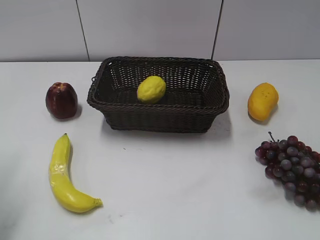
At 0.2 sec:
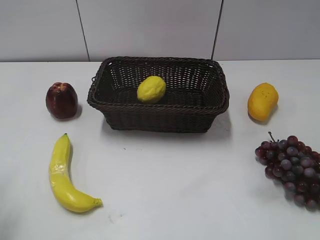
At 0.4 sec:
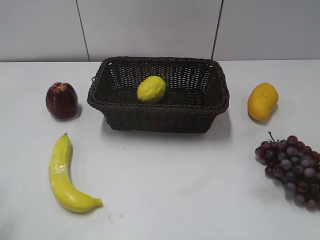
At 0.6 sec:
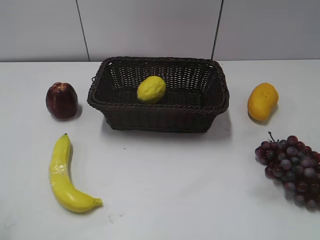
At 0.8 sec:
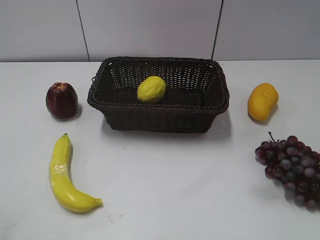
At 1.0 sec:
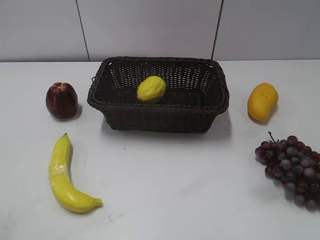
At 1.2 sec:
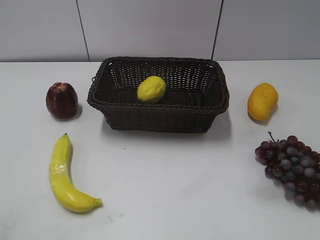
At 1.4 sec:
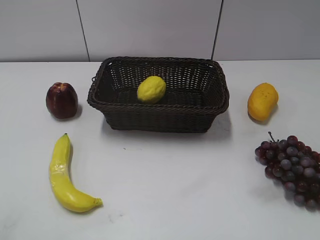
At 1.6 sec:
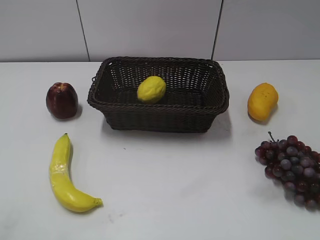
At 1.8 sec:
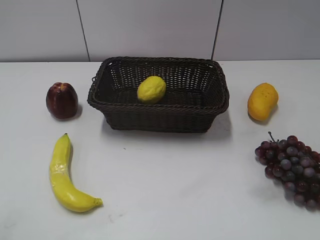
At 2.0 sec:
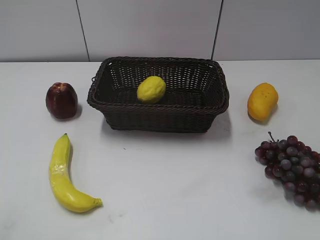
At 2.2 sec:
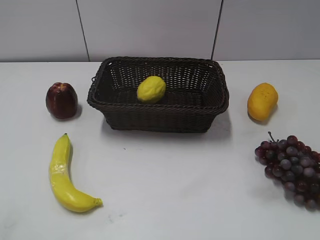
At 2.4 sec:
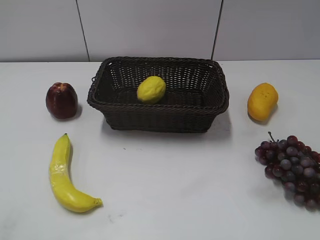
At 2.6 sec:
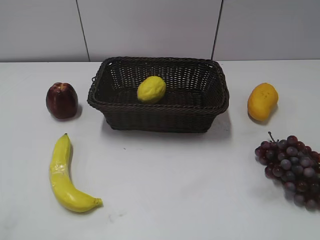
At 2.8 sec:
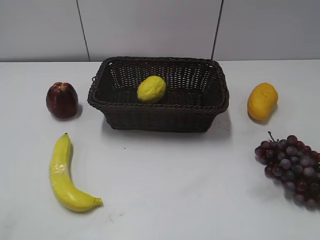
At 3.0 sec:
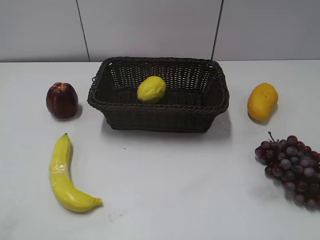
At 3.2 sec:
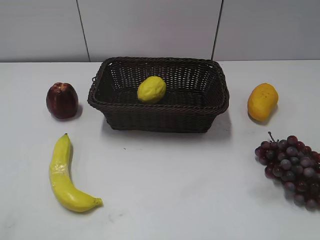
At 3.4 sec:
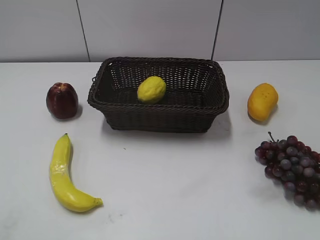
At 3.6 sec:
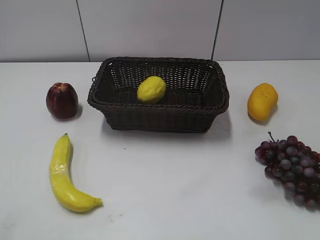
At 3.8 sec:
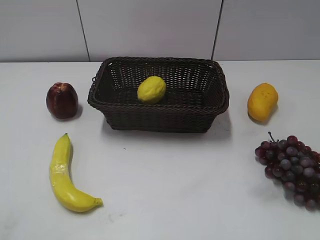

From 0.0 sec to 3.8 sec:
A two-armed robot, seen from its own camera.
From 2.6 sec to 3.8 sec: The two grippers keep their place.

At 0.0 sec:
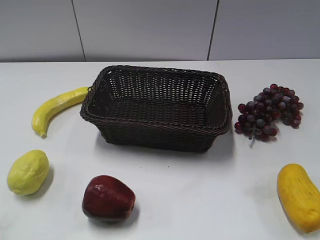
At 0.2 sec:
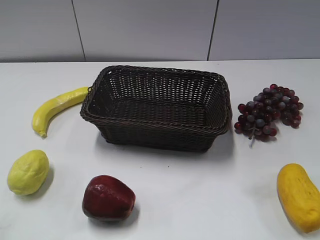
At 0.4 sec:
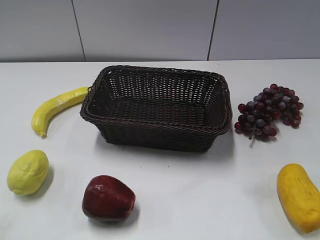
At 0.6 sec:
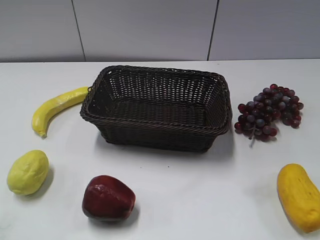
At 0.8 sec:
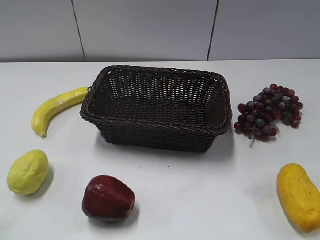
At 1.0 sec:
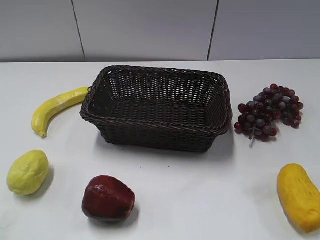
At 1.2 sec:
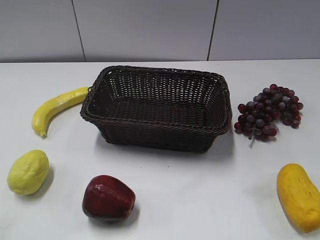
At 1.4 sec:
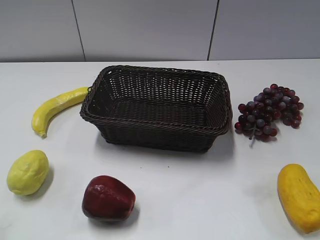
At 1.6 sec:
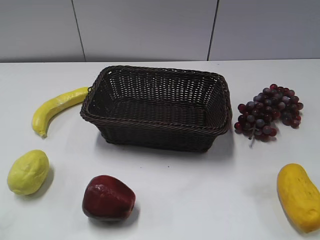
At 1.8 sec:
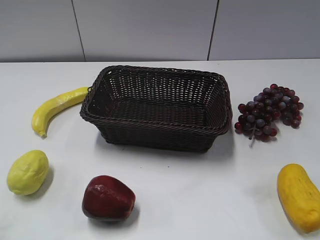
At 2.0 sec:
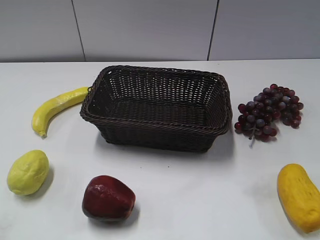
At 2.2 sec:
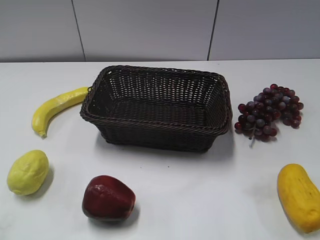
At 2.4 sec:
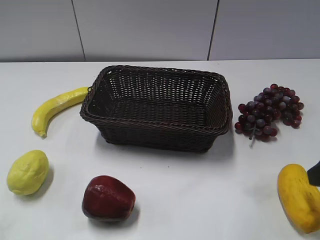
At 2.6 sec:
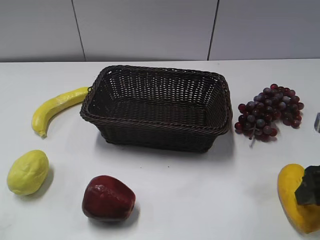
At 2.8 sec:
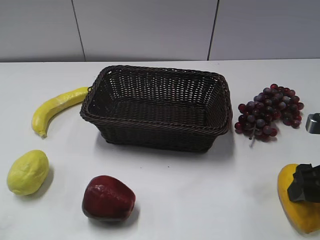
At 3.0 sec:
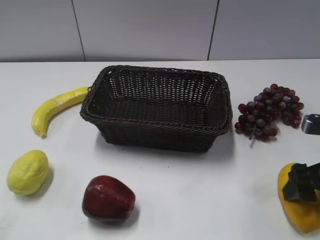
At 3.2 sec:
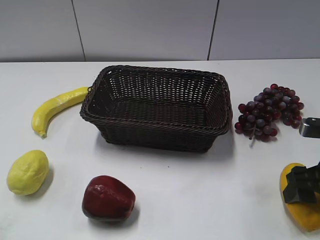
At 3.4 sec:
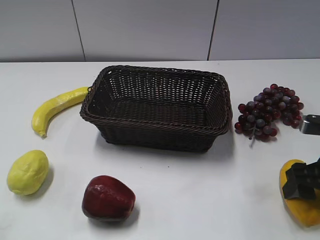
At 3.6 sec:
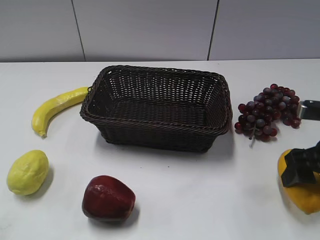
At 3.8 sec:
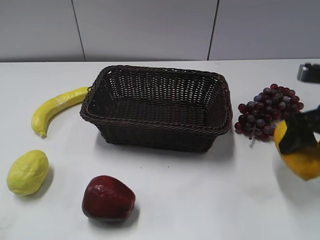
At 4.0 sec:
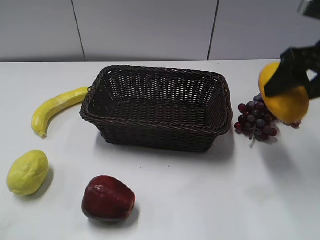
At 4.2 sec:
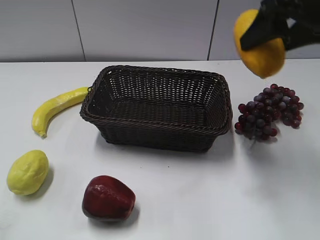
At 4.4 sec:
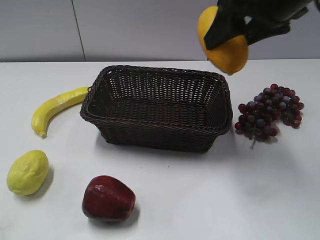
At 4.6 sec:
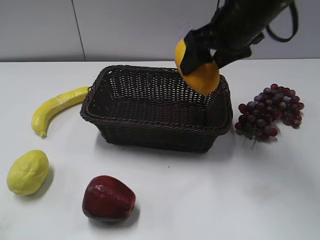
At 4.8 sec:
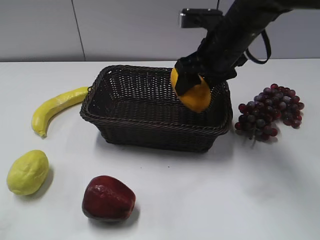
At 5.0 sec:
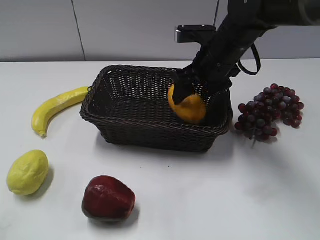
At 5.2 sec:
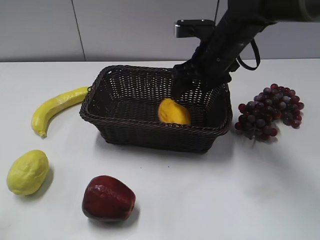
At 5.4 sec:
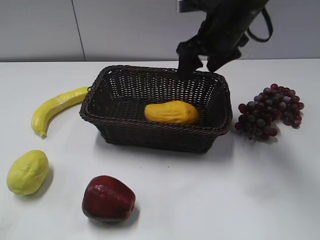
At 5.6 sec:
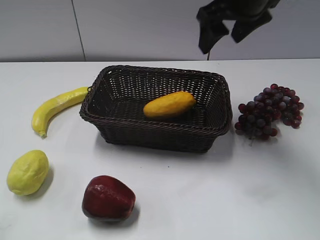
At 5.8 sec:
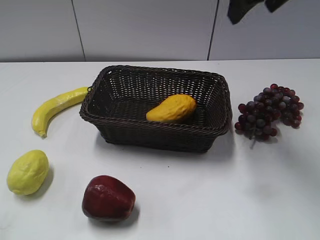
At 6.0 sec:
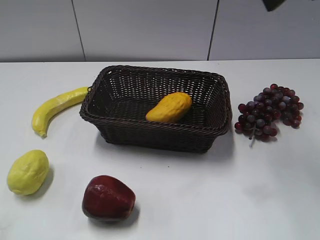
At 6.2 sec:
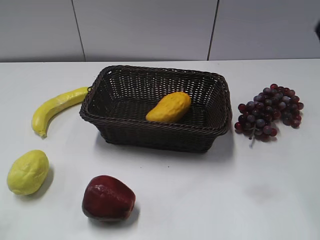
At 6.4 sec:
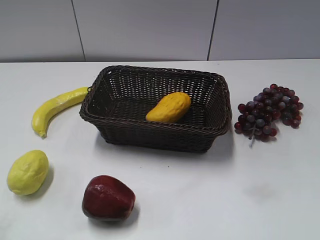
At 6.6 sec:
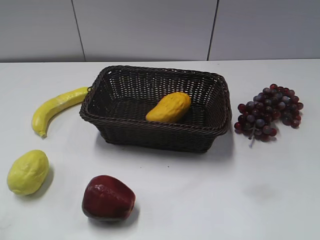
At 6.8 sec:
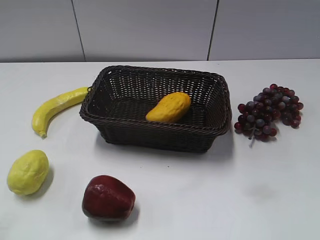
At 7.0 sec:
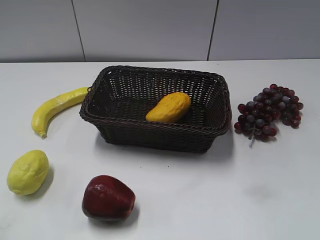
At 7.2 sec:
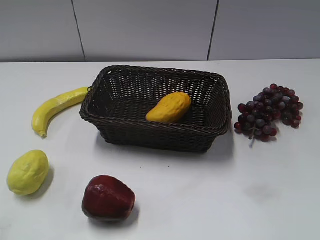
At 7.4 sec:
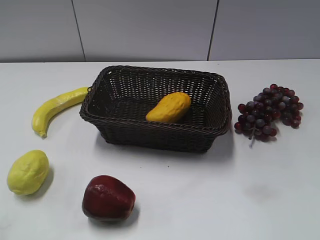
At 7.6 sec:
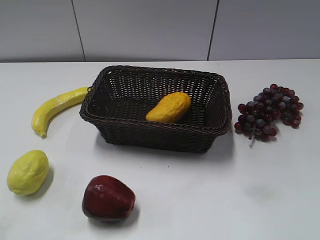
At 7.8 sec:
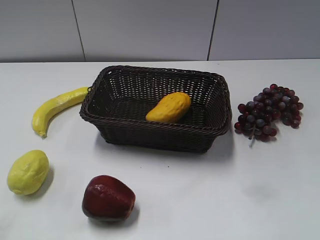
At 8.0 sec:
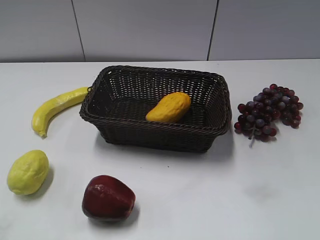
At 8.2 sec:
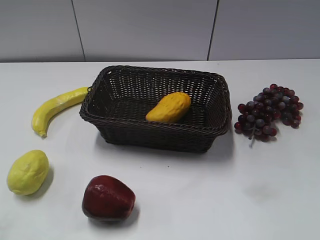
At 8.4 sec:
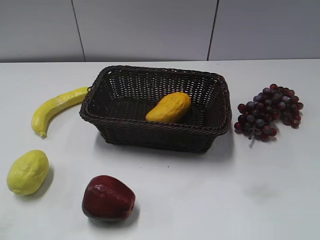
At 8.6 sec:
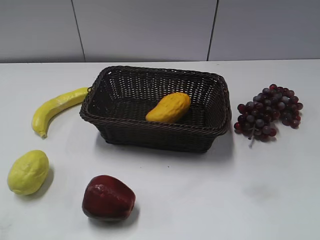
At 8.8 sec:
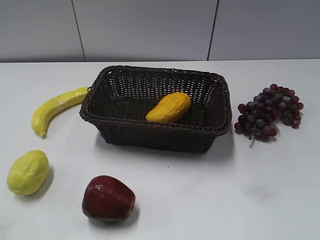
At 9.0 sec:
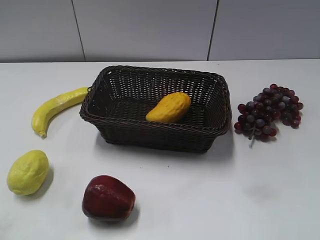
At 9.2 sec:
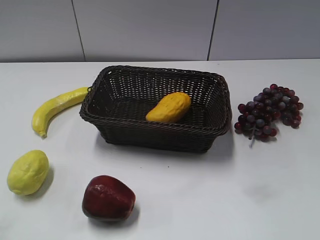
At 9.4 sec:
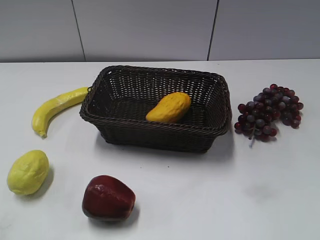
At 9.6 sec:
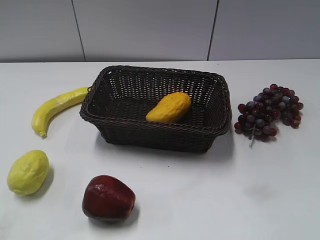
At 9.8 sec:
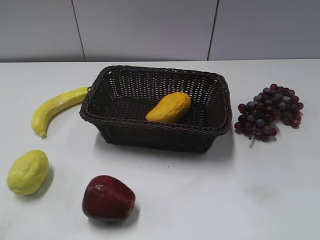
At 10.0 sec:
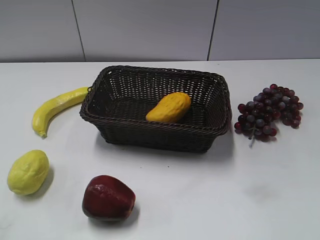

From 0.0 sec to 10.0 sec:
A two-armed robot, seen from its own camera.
Step, from 2.4 sec to 3.2 sec: Grasp the mango with right gripper.
Step, from 3.4 sec to 5.2 sec: Place the mango in the basket with right gripper.
From 1.4 sec to 2.8 sec: The right gripper moves forward and downward, roughly 25 cm, and opens.
From 2.8 sec to 4.2 sec: The right gripper shifts about 25 cm upward, forward and to the left, and closes.
From 4.2 sec to 5.8 sec: The right gripper travels downward and back again, roughly 15 cm each way, and opens up.
From 5.8 sec to 7.2 sec: The right gripper shifts approximately 35 cm backward and to the right.
From 8.6 sec to 10.0 sec: Both grippers stay about where they are.

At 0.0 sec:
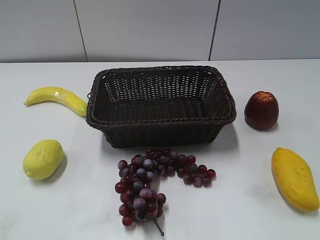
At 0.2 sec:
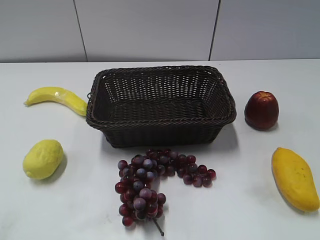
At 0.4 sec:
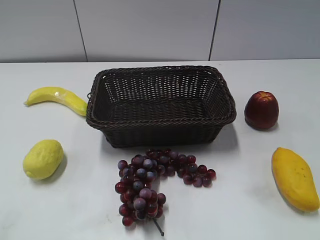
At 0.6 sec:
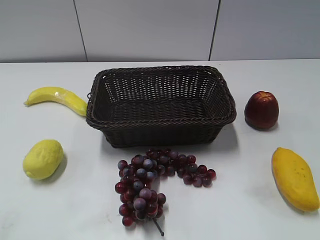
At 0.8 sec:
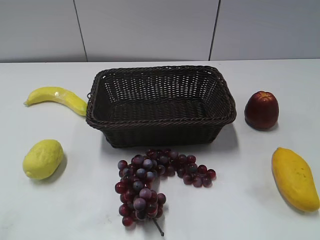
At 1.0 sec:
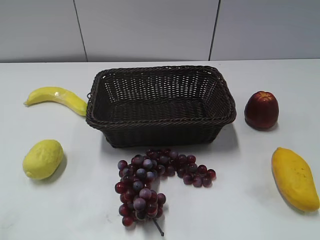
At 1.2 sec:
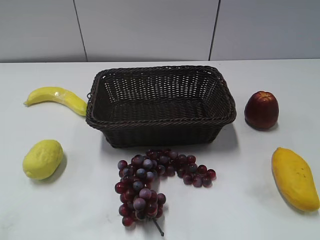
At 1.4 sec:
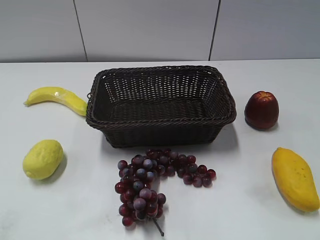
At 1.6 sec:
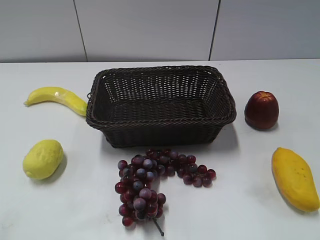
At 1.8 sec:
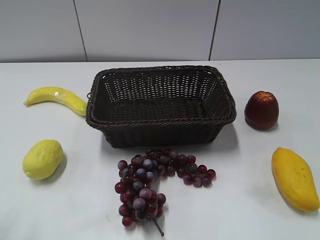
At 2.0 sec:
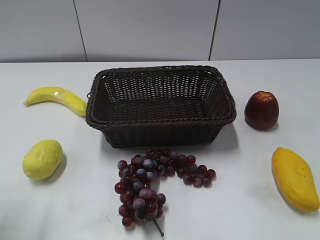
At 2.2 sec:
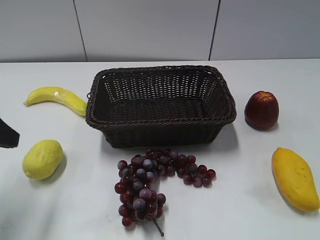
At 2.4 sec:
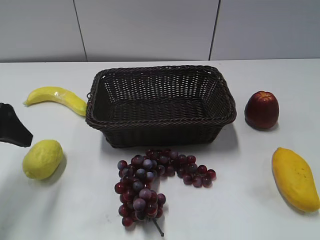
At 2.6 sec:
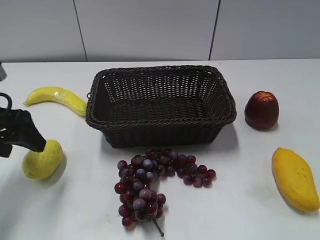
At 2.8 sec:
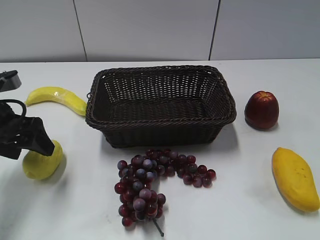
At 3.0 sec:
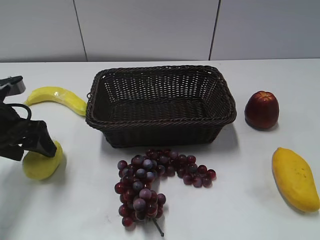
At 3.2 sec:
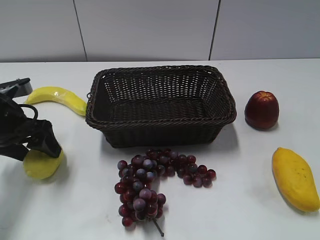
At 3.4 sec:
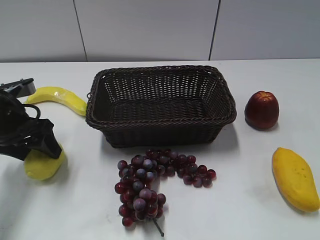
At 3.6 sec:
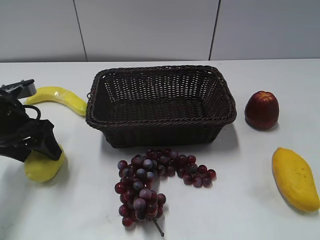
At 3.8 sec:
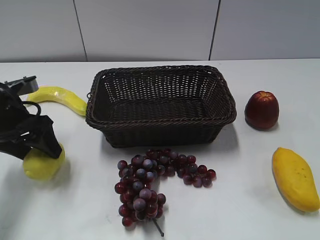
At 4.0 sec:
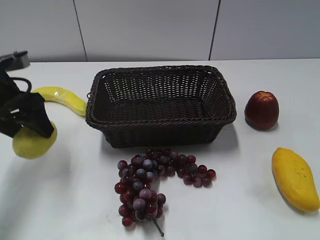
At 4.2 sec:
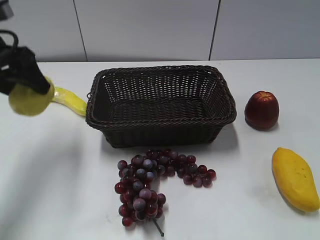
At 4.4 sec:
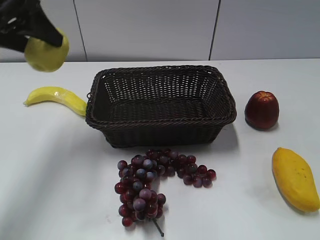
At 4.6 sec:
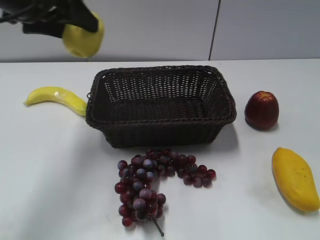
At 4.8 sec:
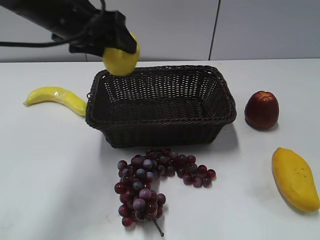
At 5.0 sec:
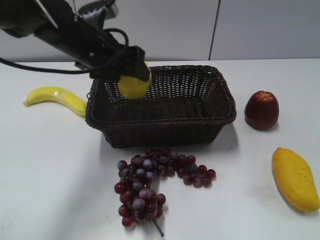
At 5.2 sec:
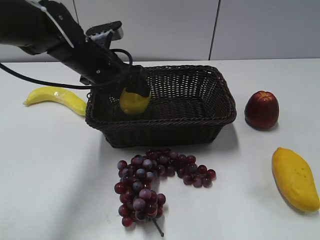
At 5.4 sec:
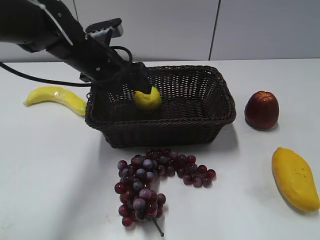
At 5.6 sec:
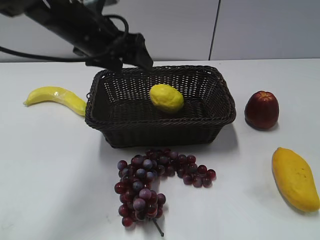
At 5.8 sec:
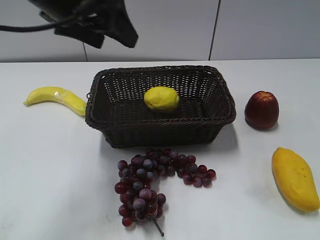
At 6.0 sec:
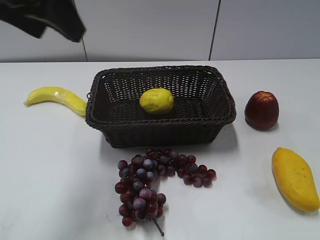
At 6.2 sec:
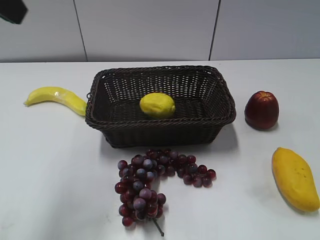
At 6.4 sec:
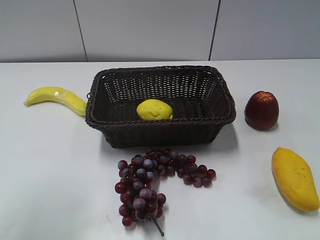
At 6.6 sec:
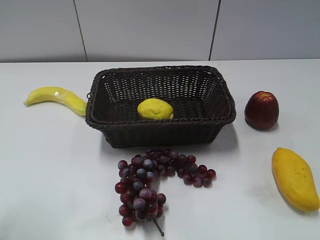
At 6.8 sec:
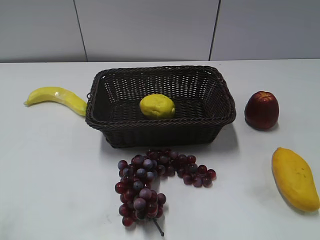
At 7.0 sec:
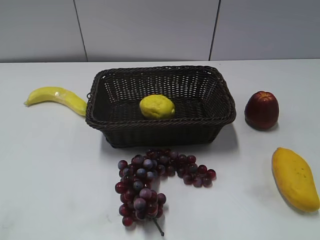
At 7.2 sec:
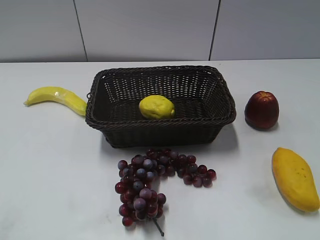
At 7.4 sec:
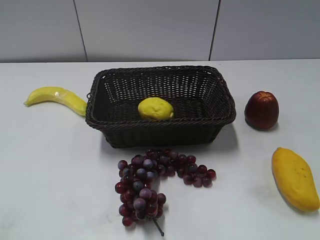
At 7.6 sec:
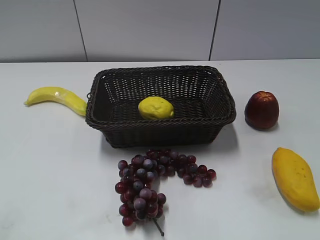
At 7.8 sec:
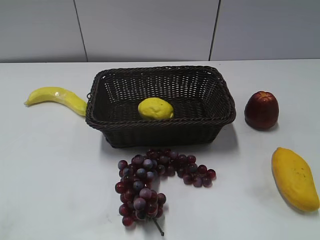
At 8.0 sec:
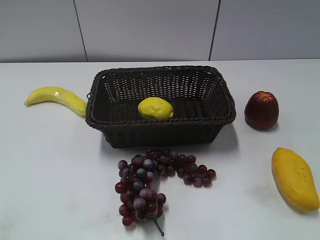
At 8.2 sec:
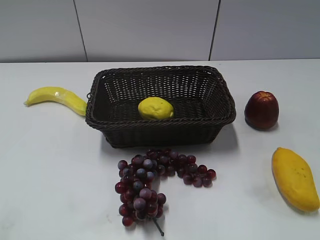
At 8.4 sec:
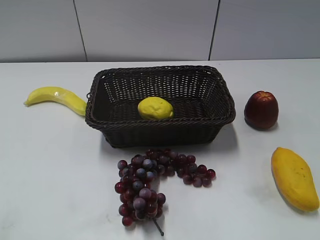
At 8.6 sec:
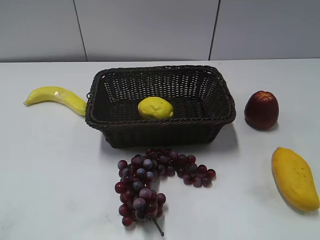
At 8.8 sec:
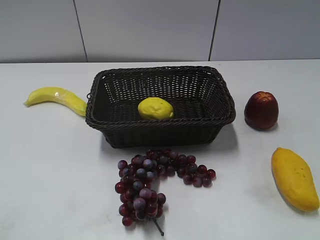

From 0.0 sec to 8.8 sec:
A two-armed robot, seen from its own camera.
Step, from 2.2 sec to 4.0 sec: Grasp the lemon with left gripper.
Step, from 4.2 sec to 5.2 sec: Place the lemon in the basket with left gripper.
From 1.4 sec to 3.0 sec: The left gripper travels forward and downward by approximately 30 cm, and opens up.
From 3.0 sec to 4.4 sec: The left gripper travels upward by approximately 15 cm, and closes up.
From 4.4 sec to 5.8 sec: The left gripper is displaced to the right by about 10 cm, goes downward and returns, about 15 cm each way, and opens its fingers.
From 5.8 sec to 7.4 sec: The left gripper heads backward and to the left, covering some 30 cm, and closes its fingers.
